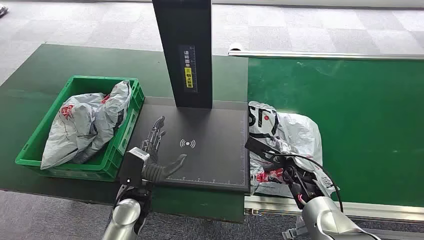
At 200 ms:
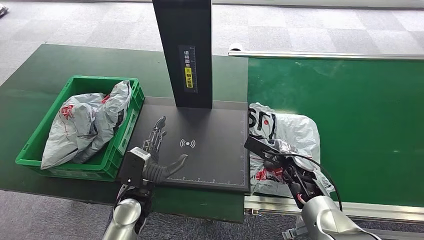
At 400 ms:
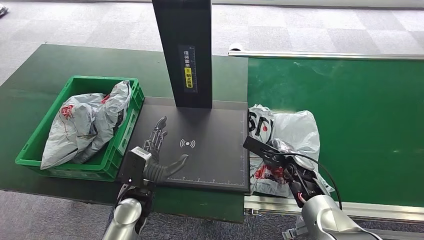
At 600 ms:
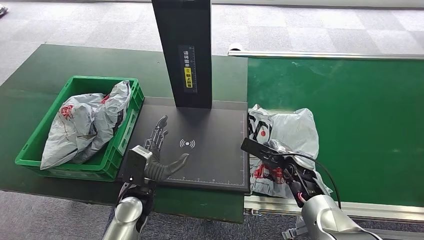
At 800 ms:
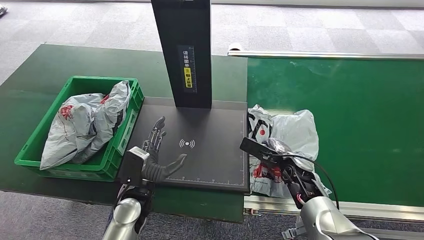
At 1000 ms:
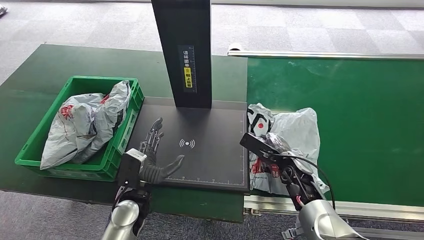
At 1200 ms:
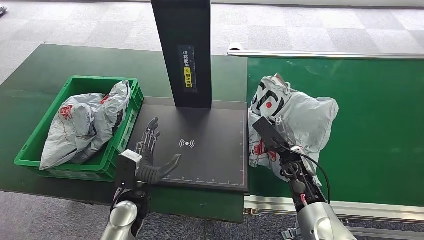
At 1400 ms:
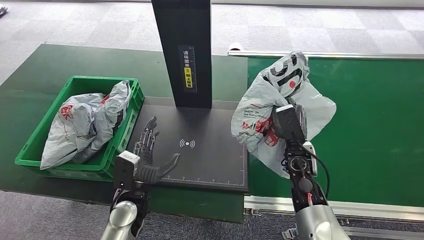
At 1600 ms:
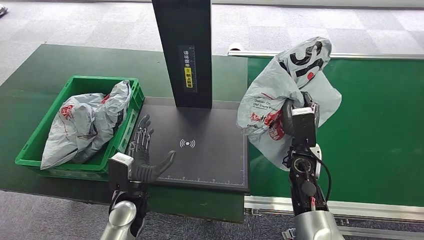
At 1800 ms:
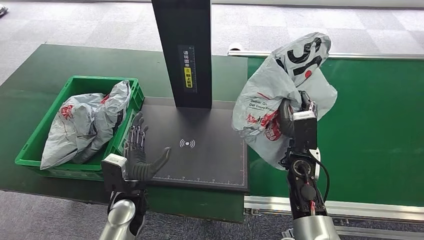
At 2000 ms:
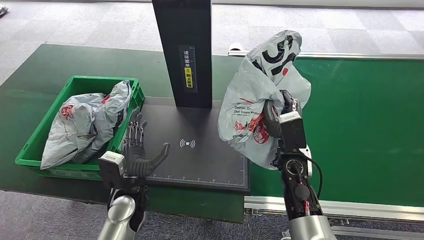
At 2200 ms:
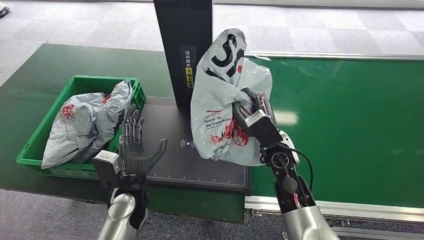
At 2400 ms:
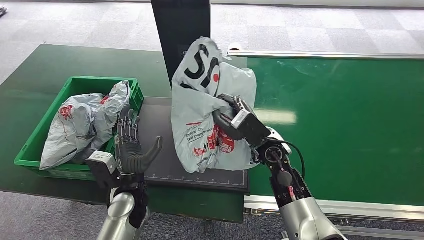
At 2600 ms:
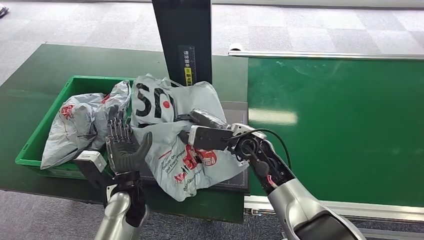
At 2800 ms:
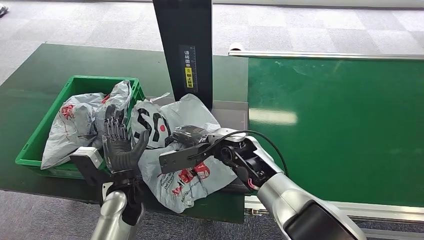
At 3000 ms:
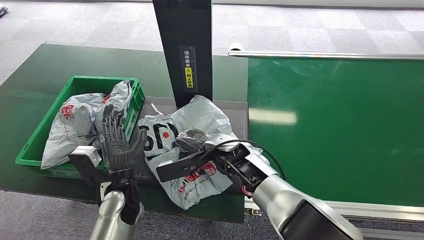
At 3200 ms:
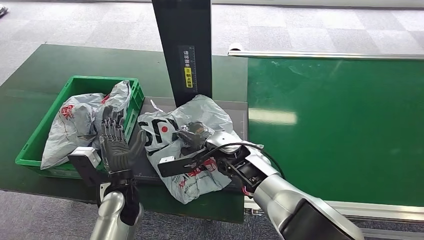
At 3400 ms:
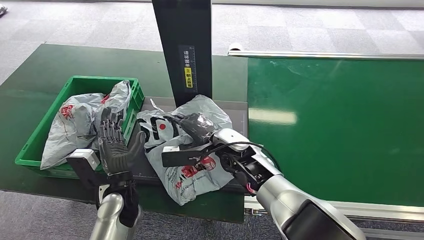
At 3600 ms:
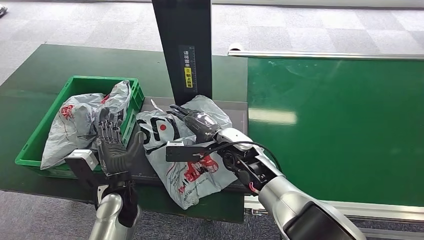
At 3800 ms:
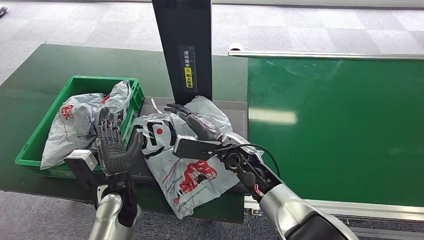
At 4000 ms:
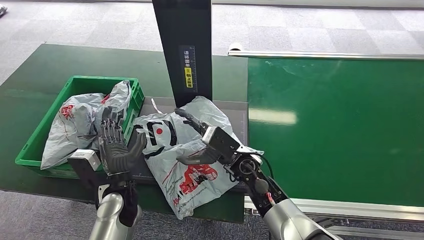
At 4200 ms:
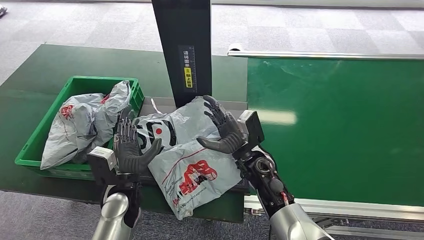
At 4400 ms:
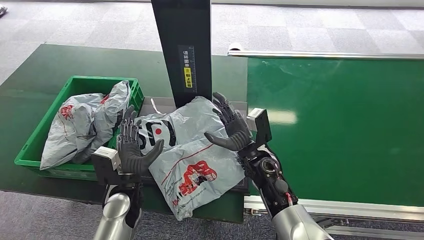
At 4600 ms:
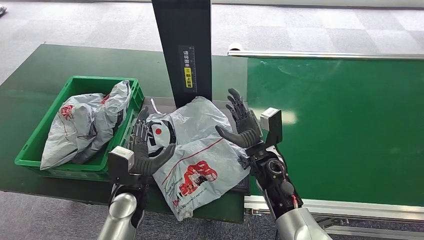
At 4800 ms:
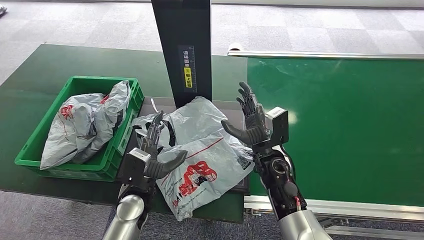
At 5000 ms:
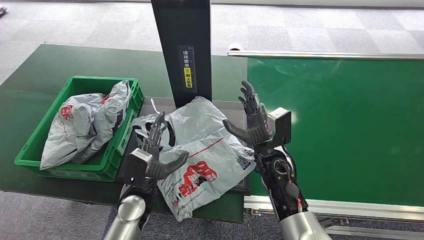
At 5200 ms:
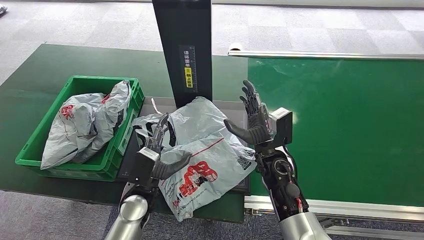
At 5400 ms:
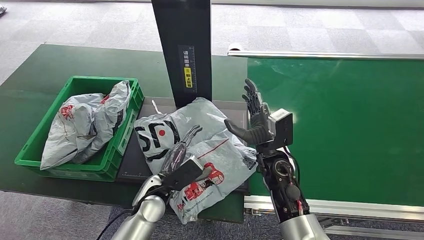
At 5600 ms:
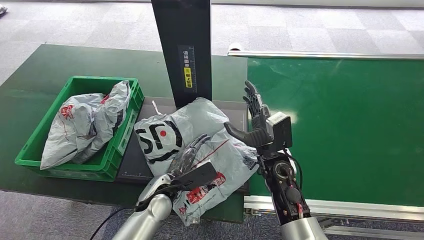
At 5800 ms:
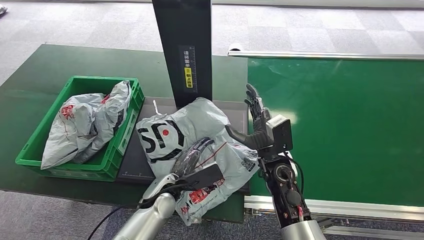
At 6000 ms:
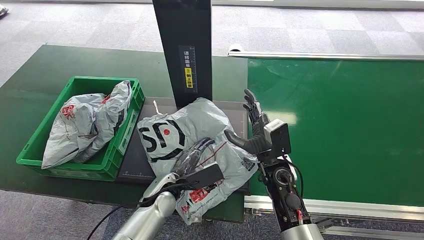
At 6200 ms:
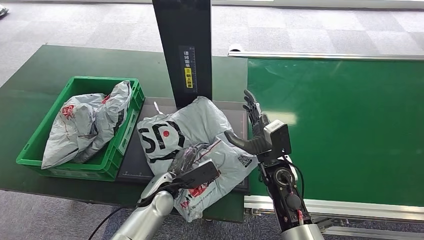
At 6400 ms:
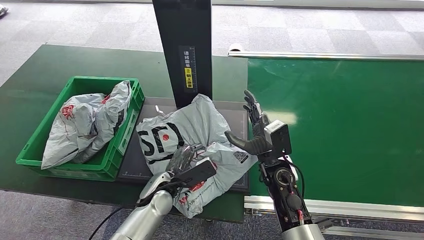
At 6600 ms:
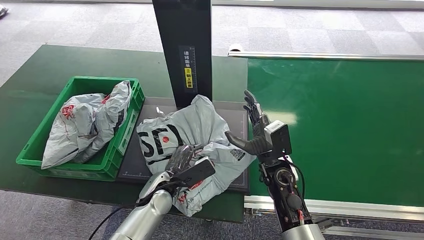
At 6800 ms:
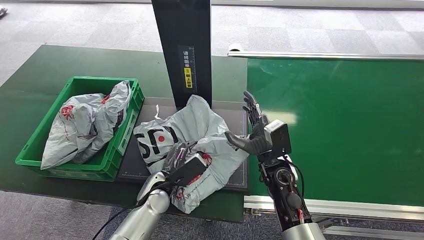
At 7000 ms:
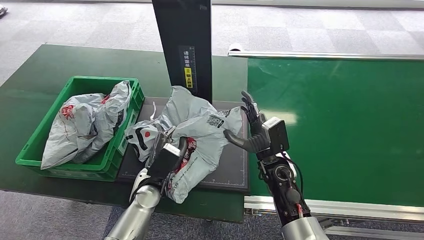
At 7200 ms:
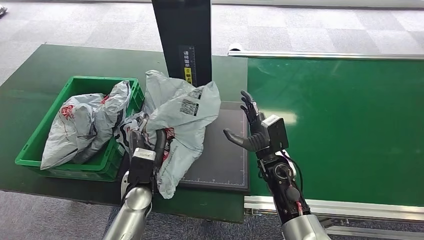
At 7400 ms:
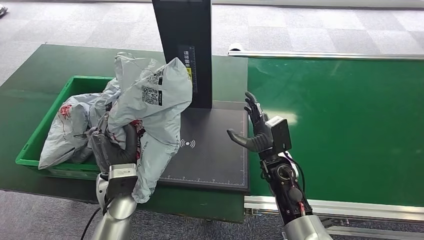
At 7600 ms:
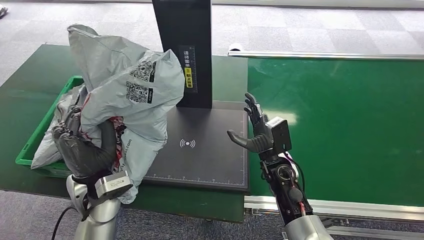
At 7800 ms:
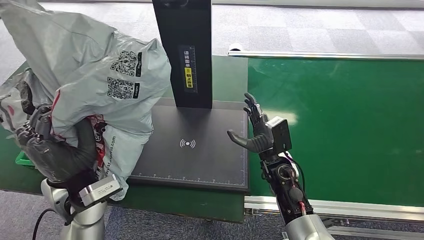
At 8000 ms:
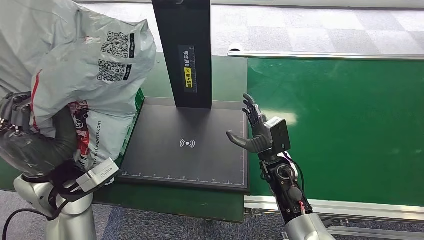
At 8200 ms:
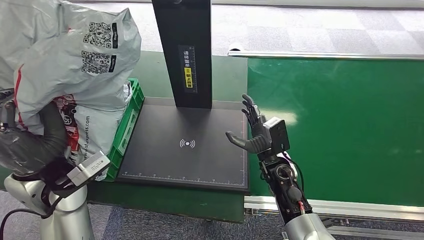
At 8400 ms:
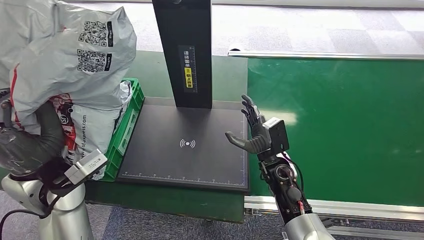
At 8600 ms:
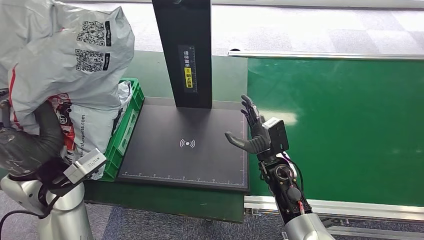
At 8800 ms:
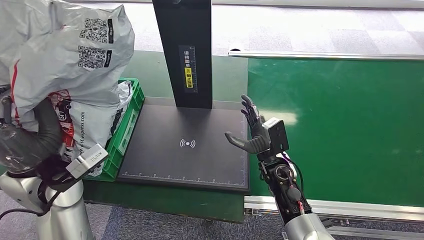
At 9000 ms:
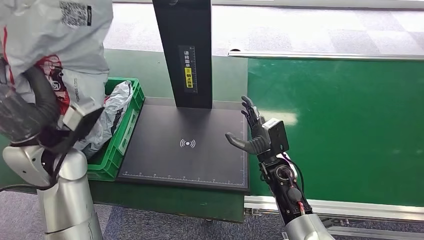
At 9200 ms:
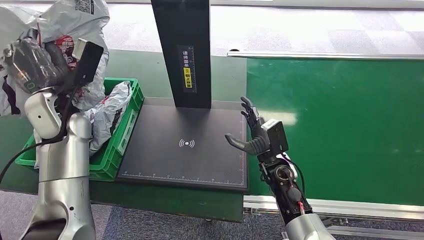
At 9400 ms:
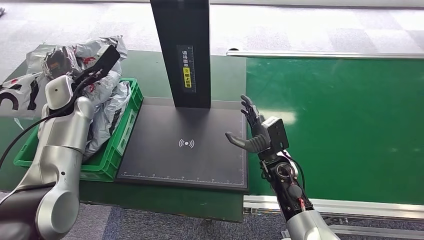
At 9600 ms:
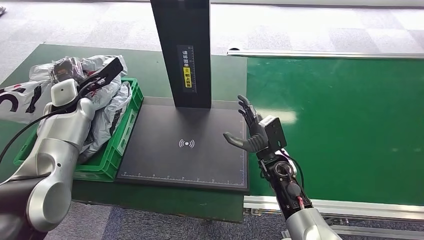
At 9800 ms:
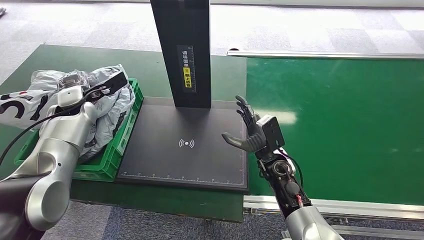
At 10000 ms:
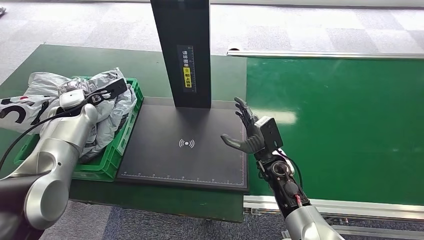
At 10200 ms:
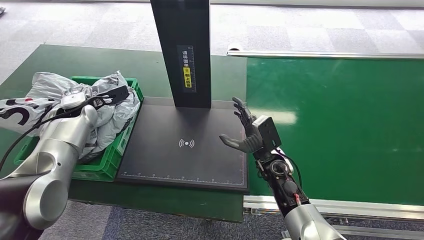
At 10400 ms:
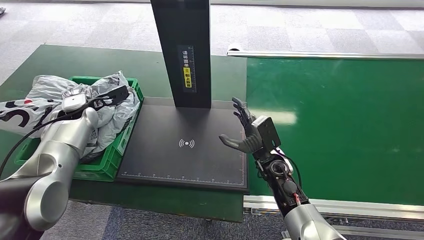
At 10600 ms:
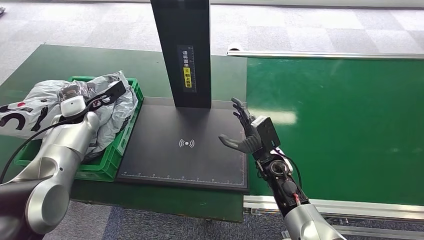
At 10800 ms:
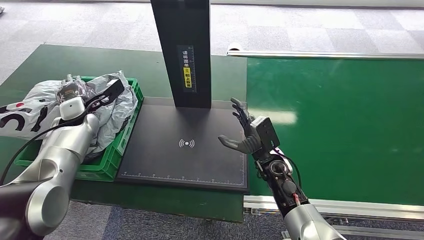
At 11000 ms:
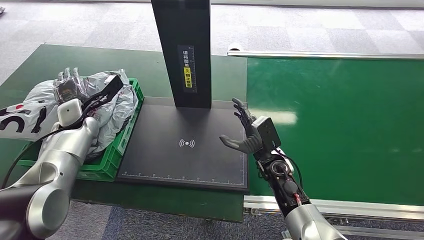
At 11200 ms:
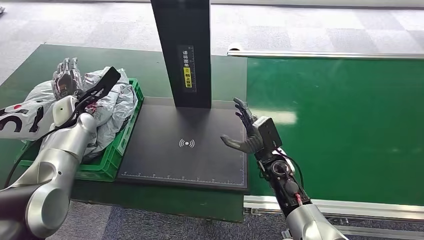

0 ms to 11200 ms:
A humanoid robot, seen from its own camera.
Task of the whole recording: Weigh the package on the weighing device and place it in the left basket.
Step, 0 ms to 1600 ms: Pick up the package from the conveyor belt.
Step, 1800 ms to 3800 ms: Place the package onto the inbound machine.
Step, 4000 ms to 7600 ms: Pick up the package from the inbound machine.
Step, 7800 ms to 11000 ms: Place the package into the parcel locker.
3200 ms to 4800 ms: The right hand heads to the right, covering roughly 10 cm.
4800 ms to 6400 ms: The left hand ends up about 5 cm from where it was.
9600 ms to 11200 ms: The left hand is displaced downward by about 5 cm.
